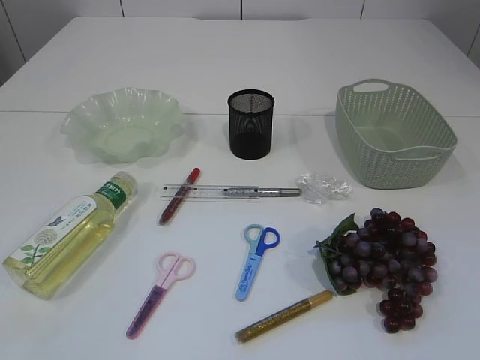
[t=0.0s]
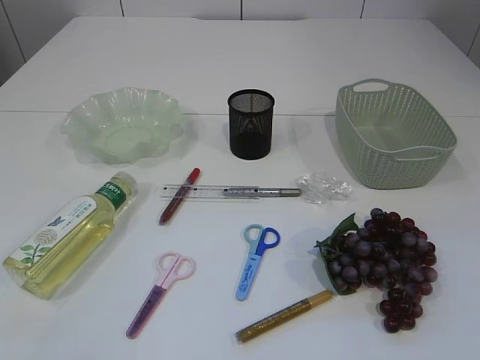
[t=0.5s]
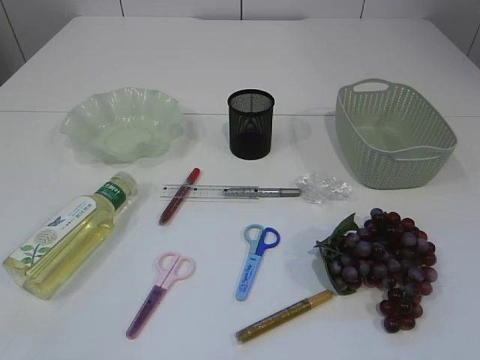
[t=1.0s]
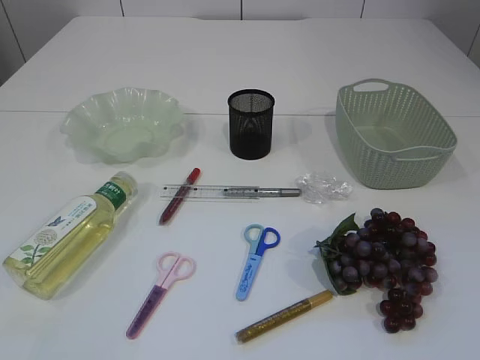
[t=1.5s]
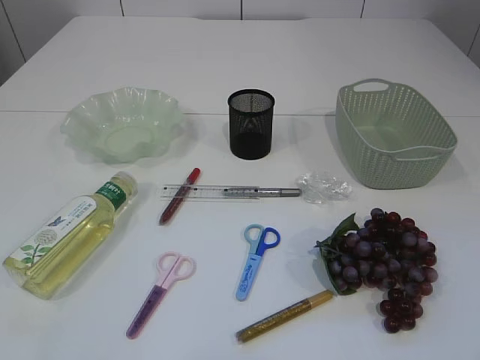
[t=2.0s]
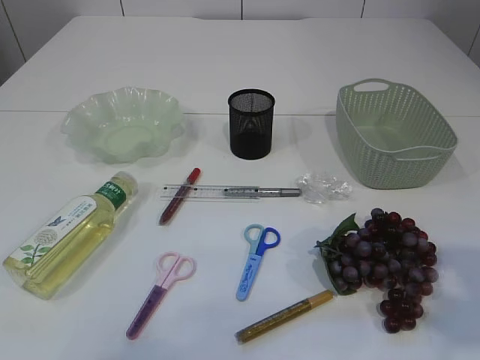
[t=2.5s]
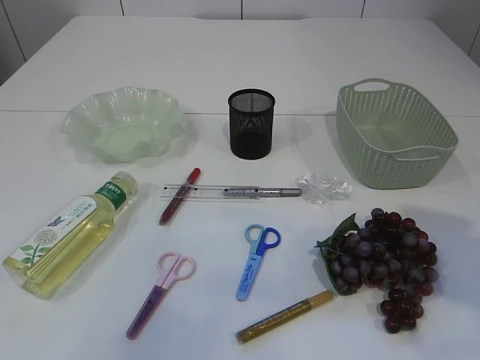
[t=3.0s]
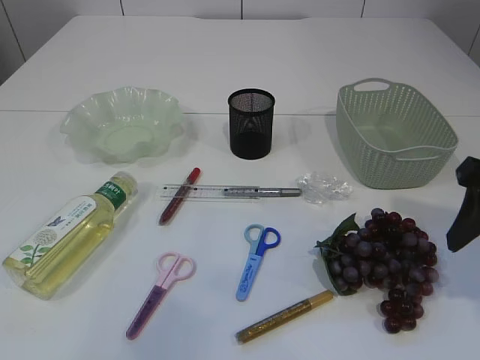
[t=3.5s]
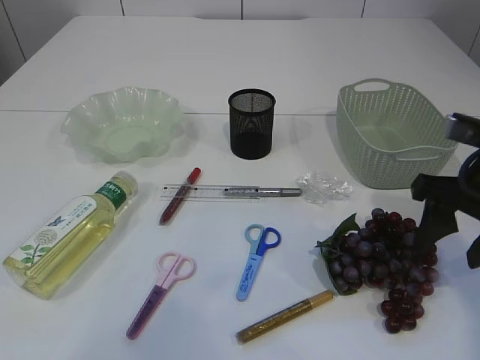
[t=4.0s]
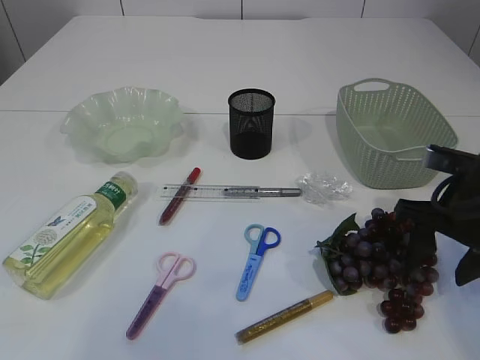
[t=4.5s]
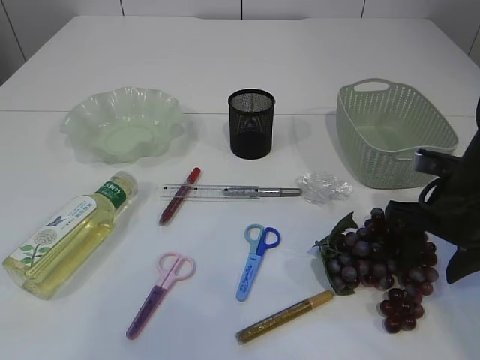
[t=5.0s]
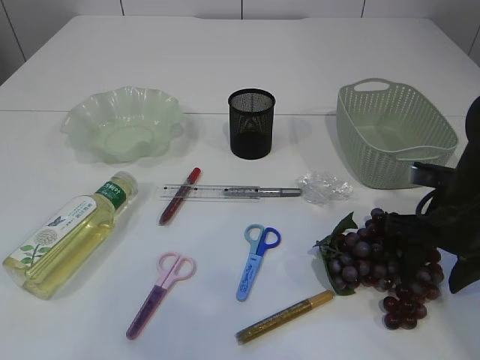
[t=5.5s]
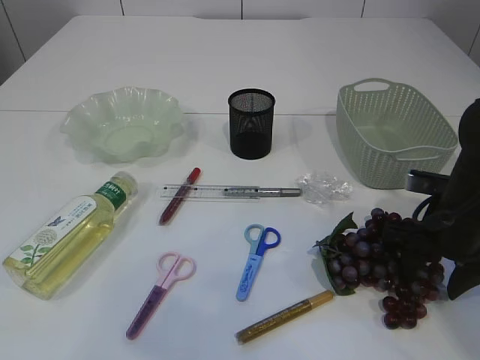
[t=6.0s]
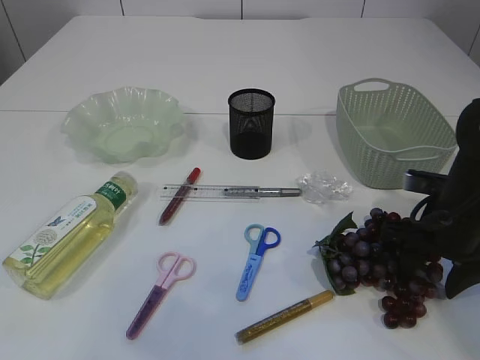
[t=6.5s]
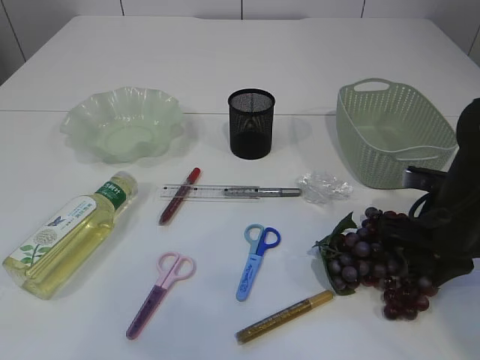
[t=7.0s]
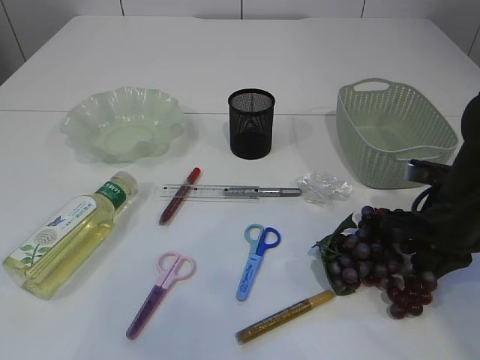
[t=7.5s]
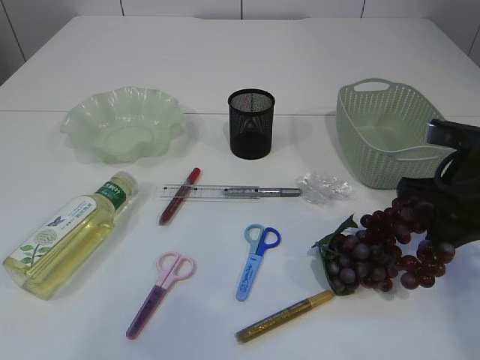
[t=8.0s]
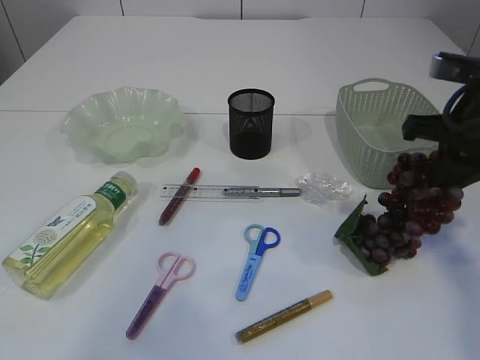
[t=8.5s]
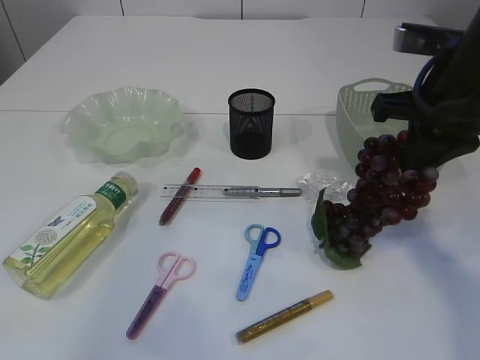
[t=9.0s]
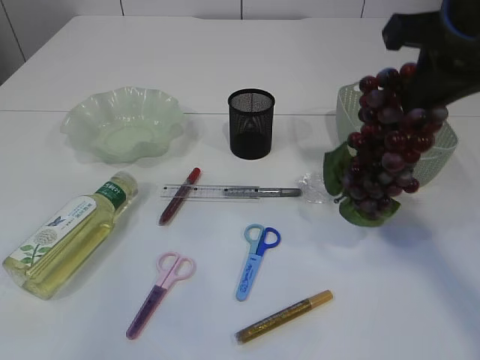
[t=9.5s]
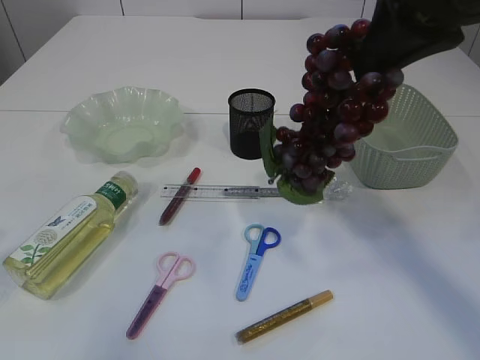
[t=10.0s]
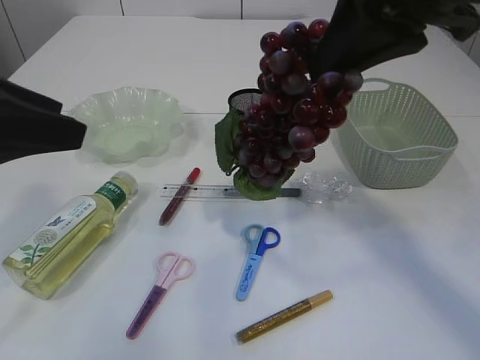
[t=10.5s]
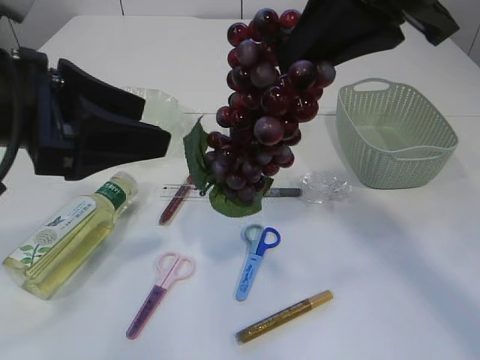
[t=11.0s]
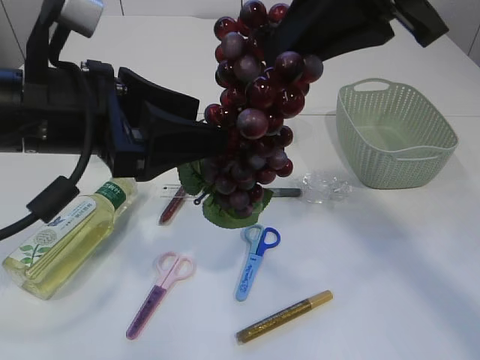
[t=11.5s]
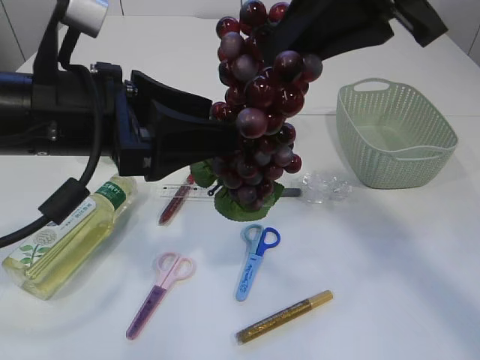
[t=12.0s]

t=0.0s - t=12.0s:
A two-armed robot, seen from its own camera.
Step, t=0.0s - t=9.5s: Pick up the grapes.
t=2.0s - t=4.0s: The right gripper goes roughly 25 cm forward. The left gripper shifts about 10 cm forward and upward.
t=4.0s - t=6.0s: The right gripper shifts roughly 10 cm downward.
t=6.0s - t=8.0s: The right gripper heads upward, covering some 5 cm, and closes its fingers.
t=8.0s - t=10.0s: The left gripper moves forward, about 5 cm; the right gripper is displaced upward and to the left by roughly 25 cm.
t=10.0s - t=12.0s: The left gripper heads to the right, forward and downward, covering approximately 20 cm.

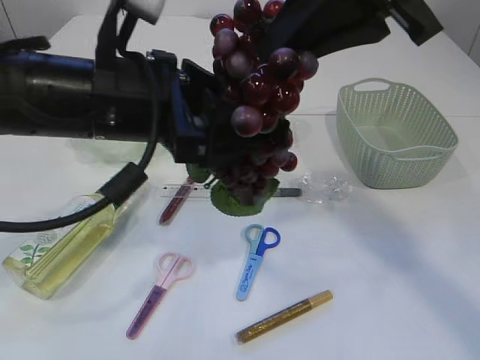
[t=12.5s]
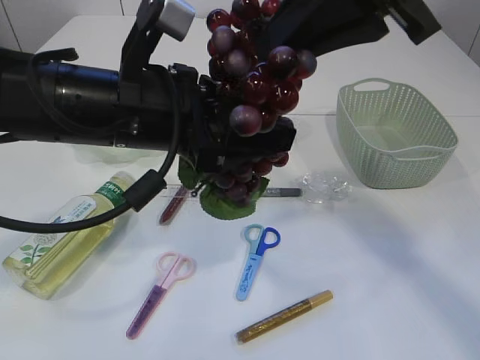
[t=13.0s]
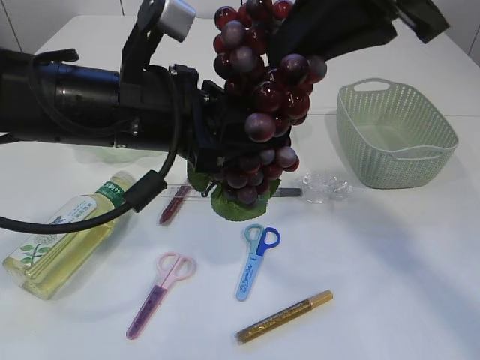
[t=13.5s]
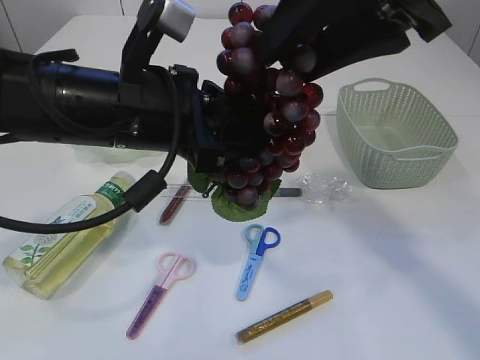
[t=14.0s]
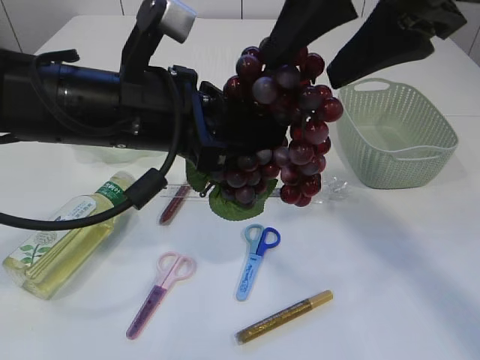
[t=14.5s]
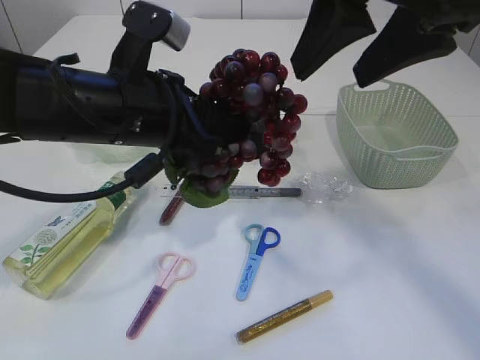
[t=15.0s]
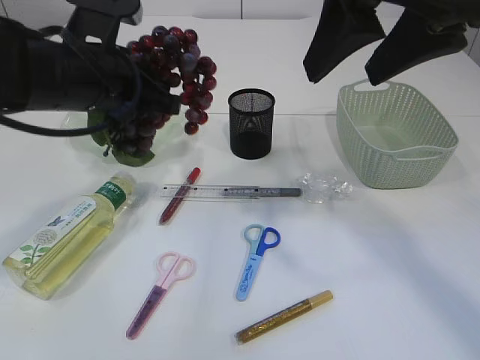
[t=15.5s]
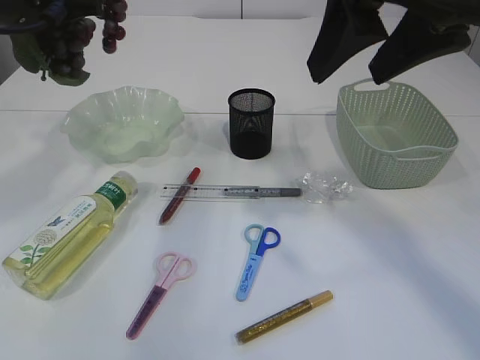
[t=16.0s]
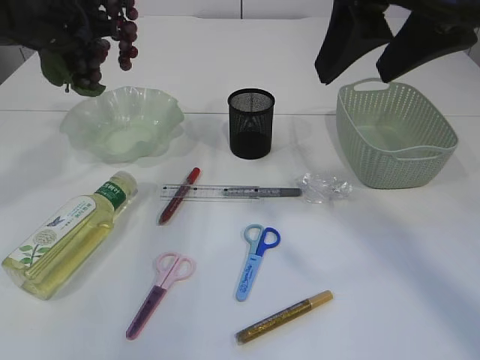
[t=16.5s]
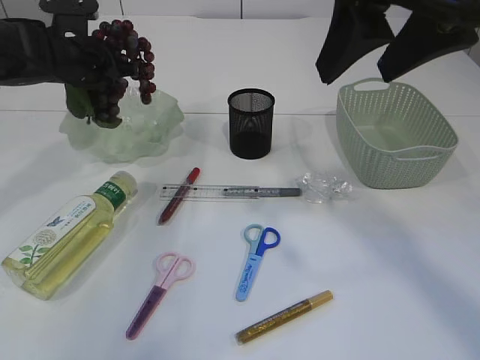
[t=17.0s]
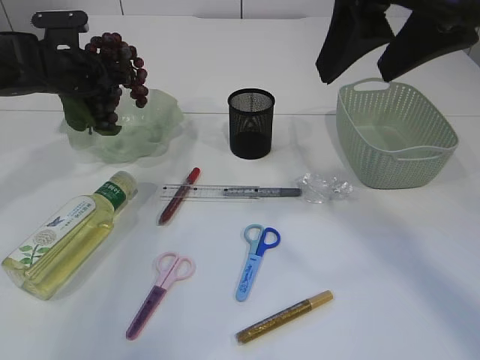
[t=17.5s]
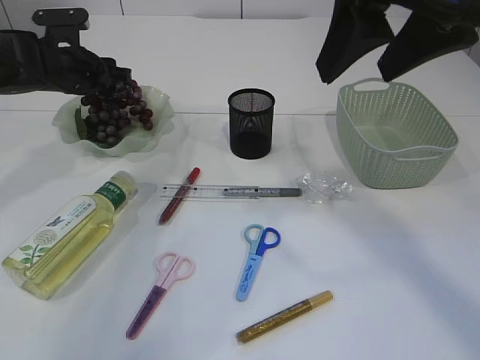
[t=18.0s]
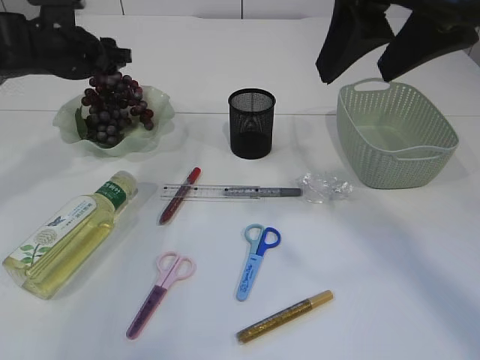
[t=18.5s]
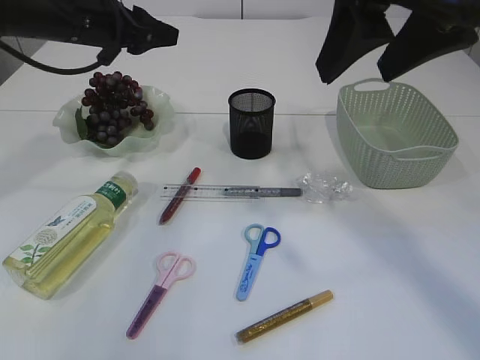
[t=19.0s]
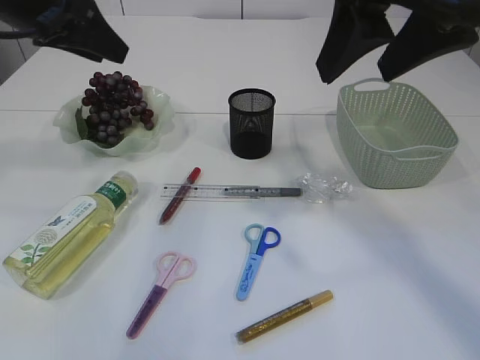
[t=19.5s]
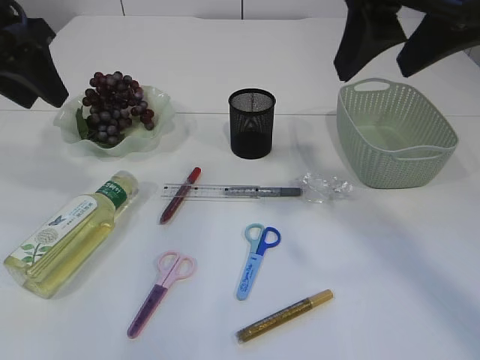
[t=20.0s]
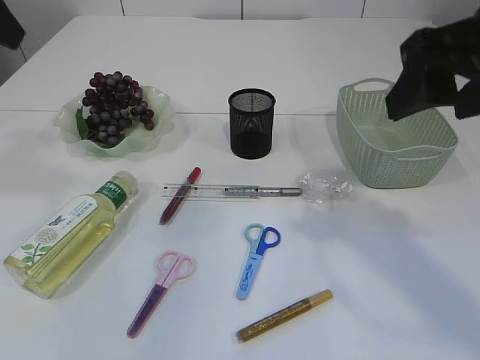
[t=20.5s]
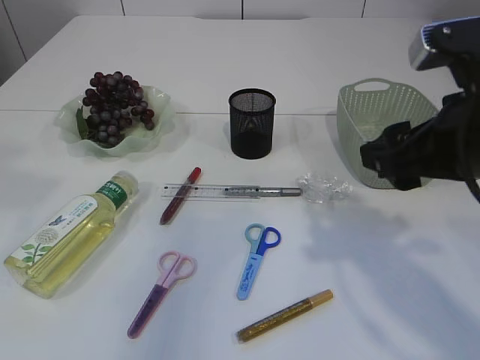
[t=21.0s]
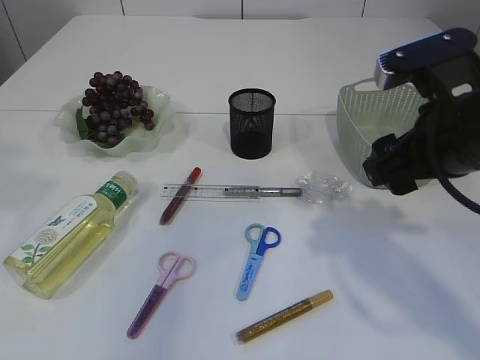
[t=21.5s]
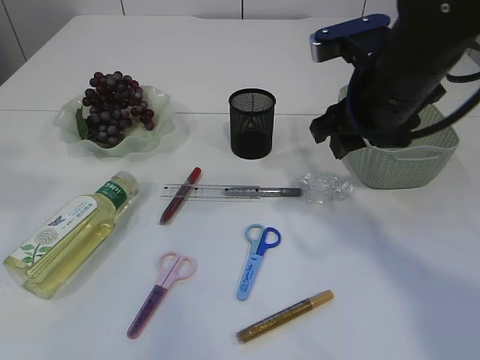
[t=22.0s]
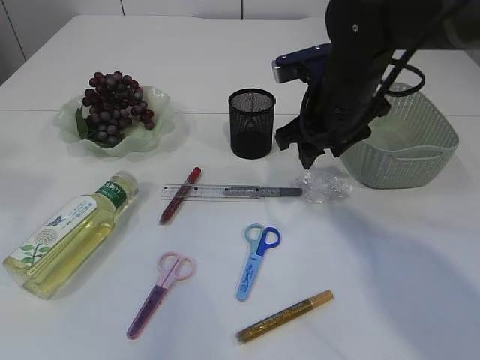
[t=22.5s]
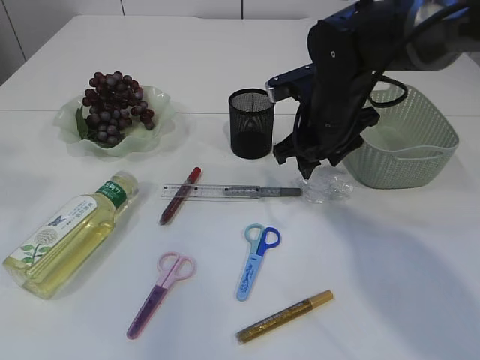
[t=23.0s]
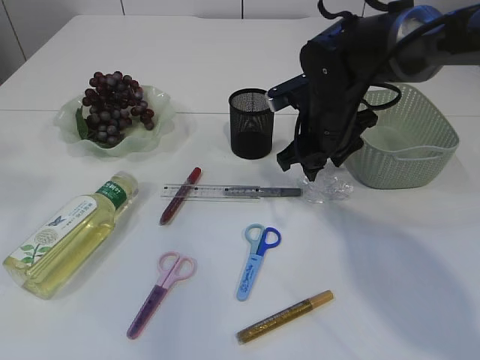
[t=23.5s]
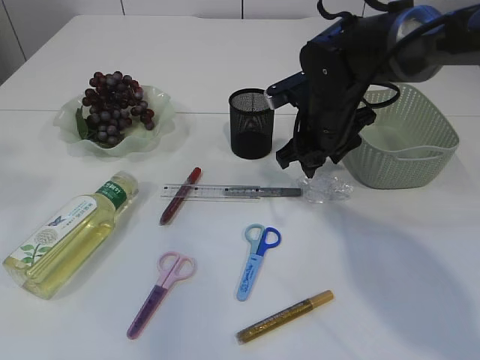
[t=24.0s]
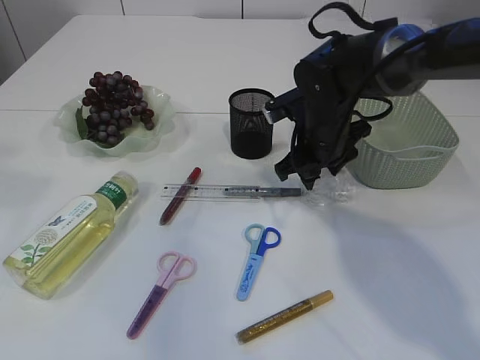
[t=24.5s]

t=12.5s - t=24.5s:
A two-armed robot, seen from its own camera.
Step, t=12.5s - t=15.0s: Hand over the grapes.
Step, t=15.5s - t=18.5s: Place the grapes in the plate.
t=12.5s - t=14.5s: The left gripper closes up. Meanwhile the right gripper opens its fingers.
t=14.5s - t=16.5s: The left gripper moves forward and to the left, about 25 cm.
t=16.5s - t=18.5s: The left gripper is displaced downward by some 5 cm, and opens.
t=18.5s - t=20.5s: The right gripper changes place by some 5 cm, while the left gripper goes roughly 25 cm backward and upward.
t=20.5s - t=22.5s: The right gripper goes roughly 20 cm forward and downward, while the left gripper goes about 10 cm backward and upward.
t=22.5s - t=24.5s: The right gripper goes roughly 5 cm downward.

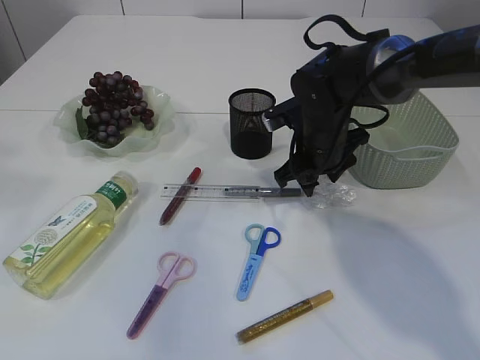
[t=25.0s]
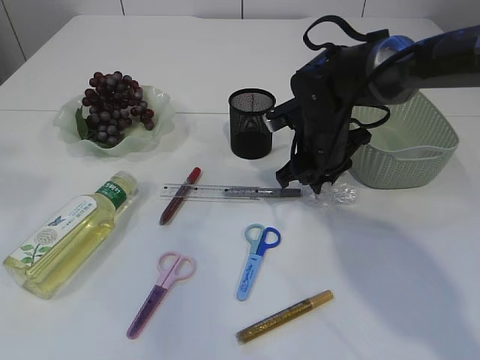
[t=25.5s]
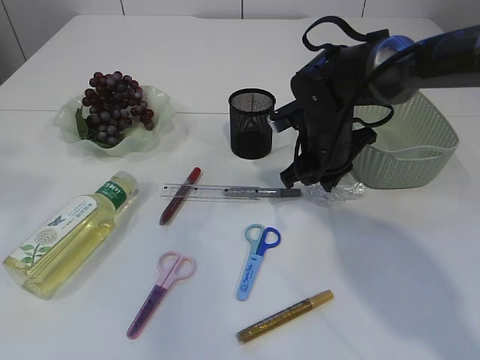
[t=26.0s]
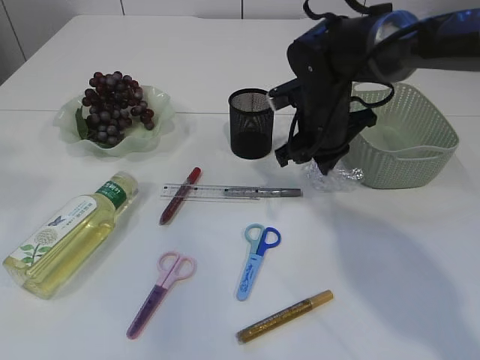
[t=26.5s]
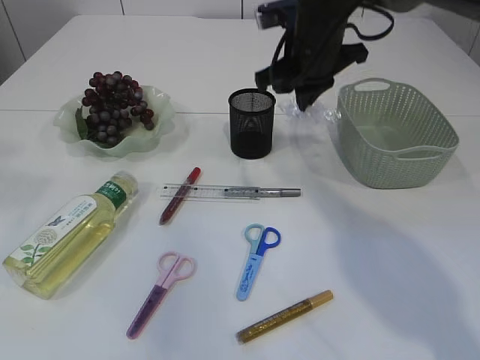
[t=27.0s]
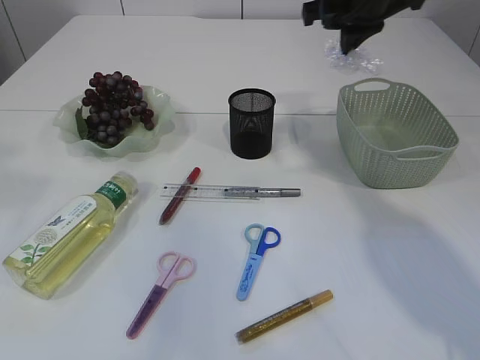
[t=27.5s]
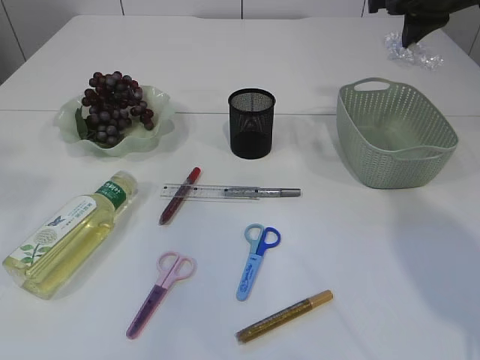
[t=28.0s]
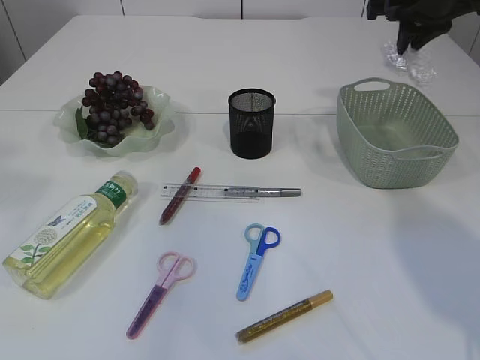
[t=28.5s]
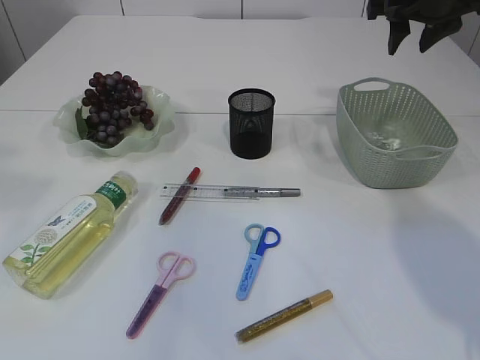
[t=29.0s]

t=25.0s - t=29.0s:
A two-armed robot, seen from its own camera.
t=25.0s - t=27.0s: The right gripper goes roughly 10 cm upward, and closes up.
t=27.0s - t=29.0s: The right gripper travels to the right and upward by roughly 15 cm, and opens its fingers.
